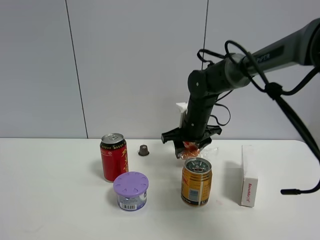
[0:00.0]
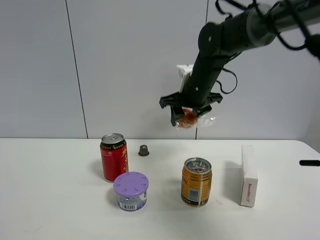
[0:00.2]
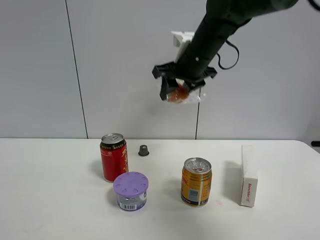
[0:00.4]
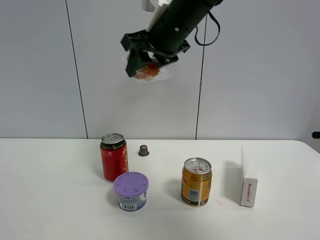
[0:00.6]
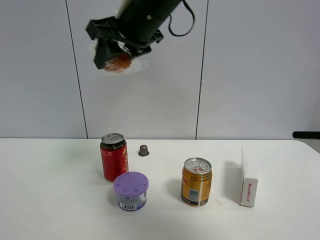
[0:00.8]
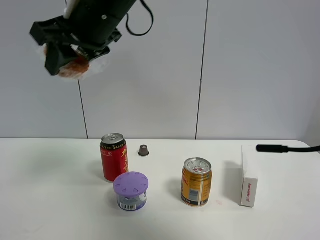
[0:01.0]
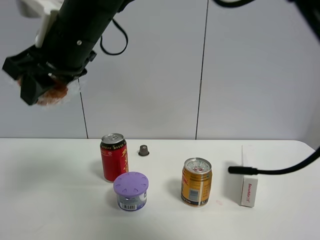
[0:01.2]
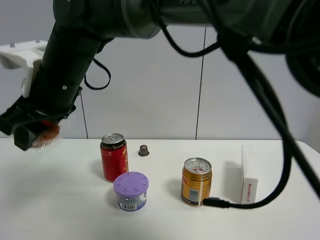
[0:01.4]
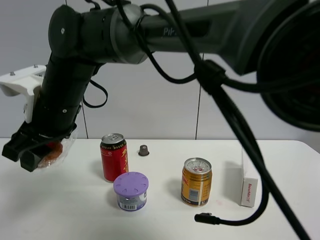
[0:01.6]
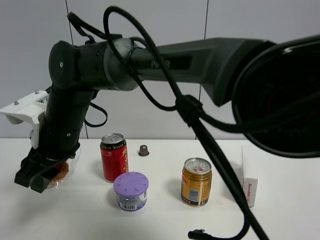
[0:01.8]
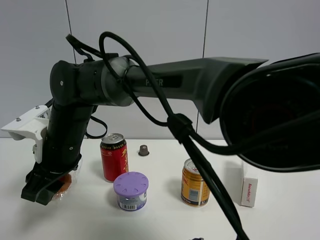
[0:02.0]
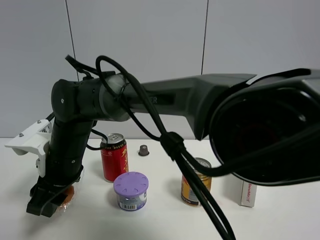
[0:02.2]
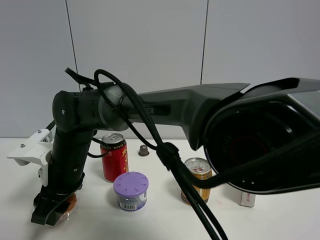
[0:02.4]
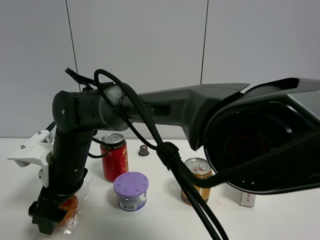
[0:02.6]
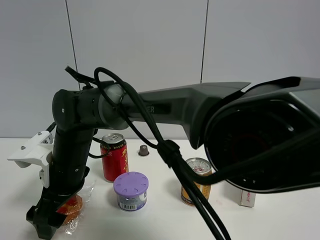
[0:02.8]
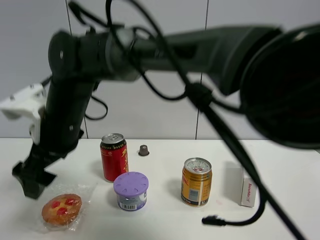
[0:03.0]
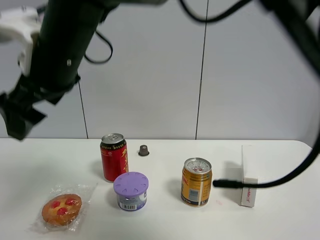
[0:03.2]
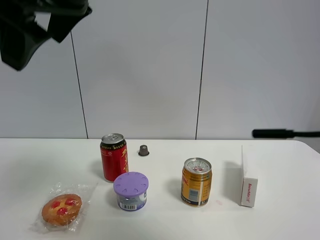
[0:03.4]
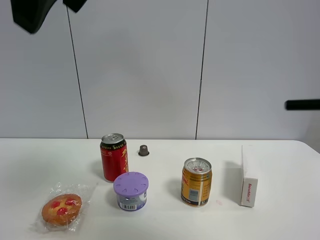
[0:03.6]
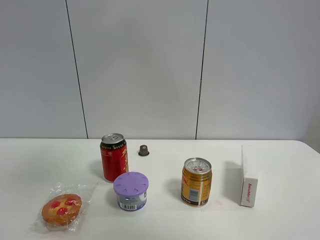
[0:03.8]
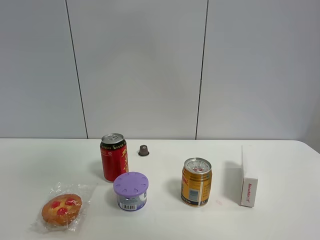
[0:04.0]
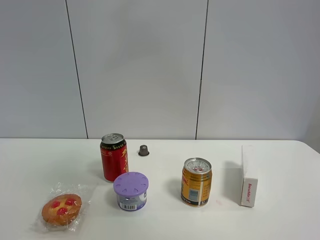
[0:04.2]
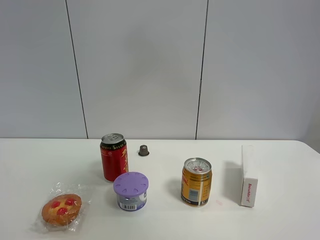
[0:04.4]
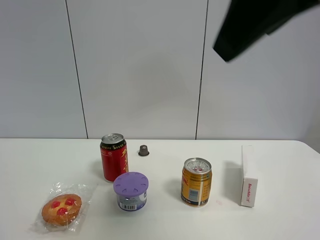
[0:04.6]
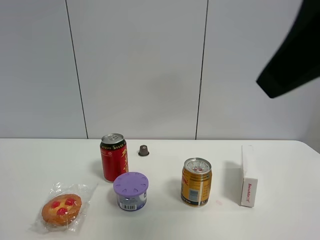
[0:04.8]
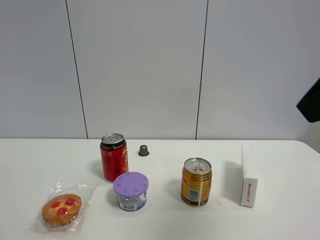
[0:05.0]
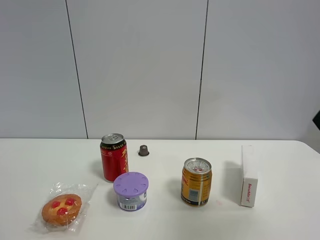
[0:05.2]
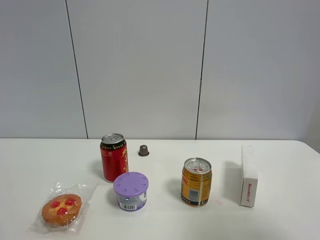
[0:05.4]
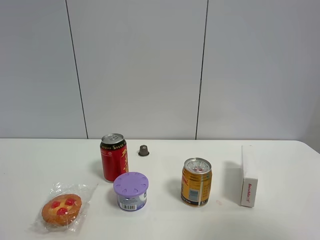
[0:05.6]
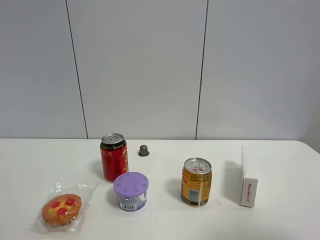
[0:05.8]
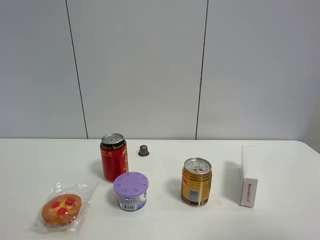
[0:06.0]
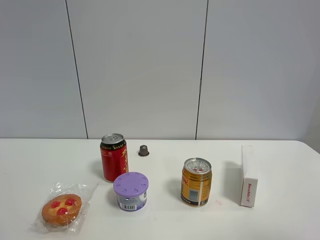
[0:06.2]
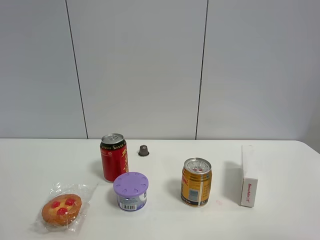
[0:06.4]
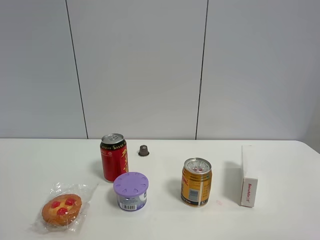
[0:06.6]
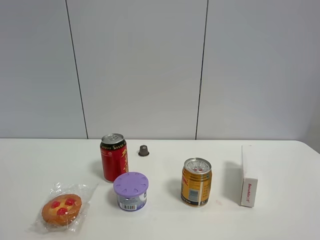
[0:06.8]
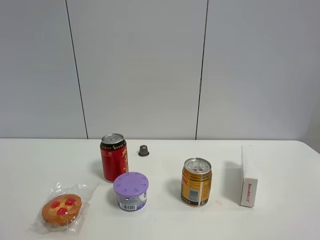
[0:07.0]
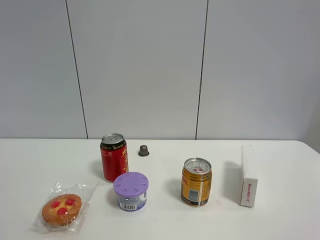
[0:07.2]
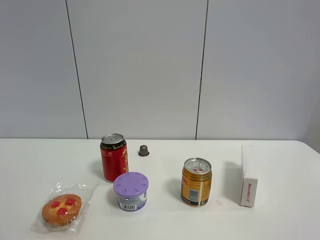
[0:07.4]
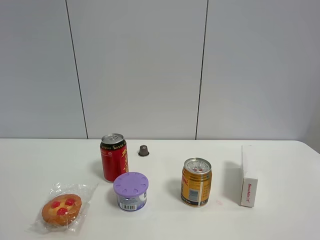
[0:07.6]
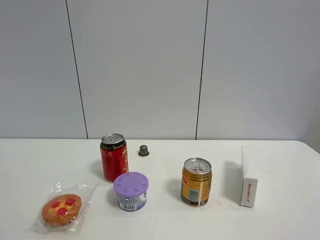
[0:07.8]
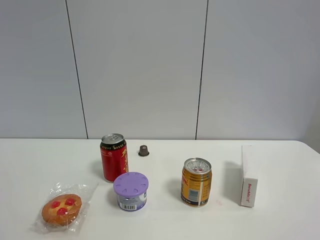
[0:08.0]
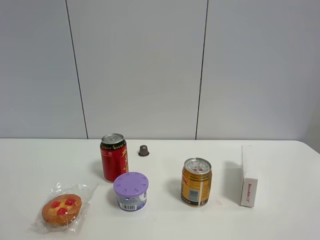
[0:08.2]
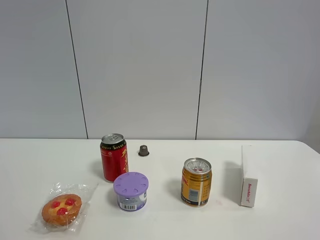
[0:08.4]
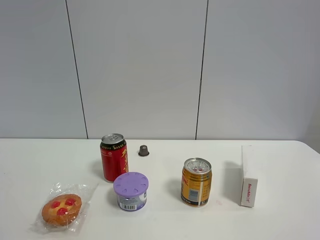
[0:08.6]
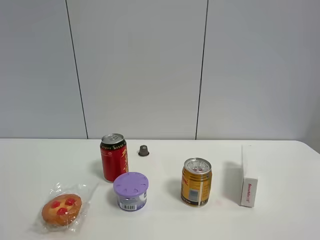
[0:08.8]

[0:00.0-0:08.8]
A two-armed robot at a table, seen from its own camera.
Task of the whole recording: the gripper move the object.
Step, 0:00.0 to 0:02.8: Place the egg tart on the table with the right gripper.
0:00.0 to 0:01.4: The right gripper is displaced to the left and backward by about 30 cm.
0:01.4 to 0:03.0: The right gripper goes downward and returns, approximately 15 cm each way, and opens.
0:03.0 to 0:04.4: The right gripper is displaced to the right, upward and backward by approximately 35 cm.
0:04.4 to 0:05.8: The right gripper is displaced to the right, downward and backward by some 25 cm.
0:05.8 to 0:07.4: The right gripper shifts about 10 cm backward.
